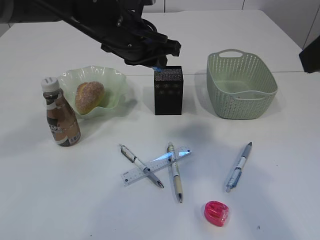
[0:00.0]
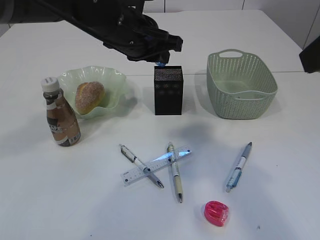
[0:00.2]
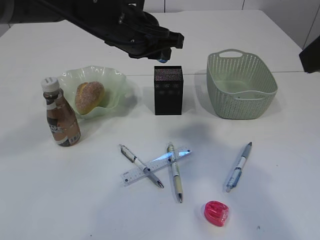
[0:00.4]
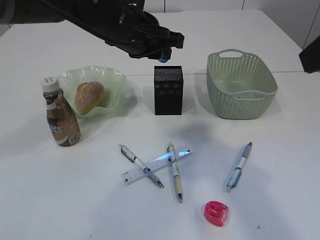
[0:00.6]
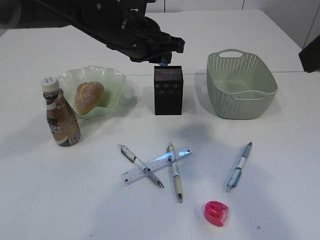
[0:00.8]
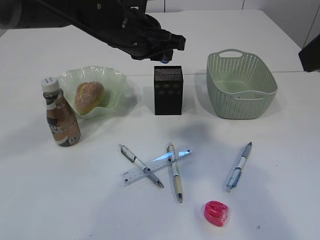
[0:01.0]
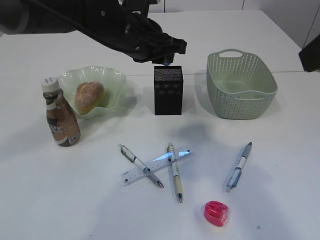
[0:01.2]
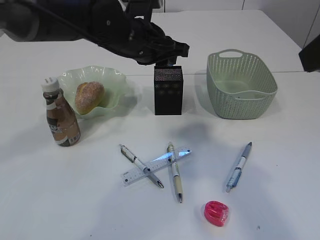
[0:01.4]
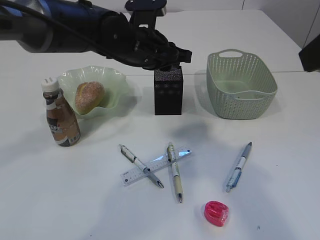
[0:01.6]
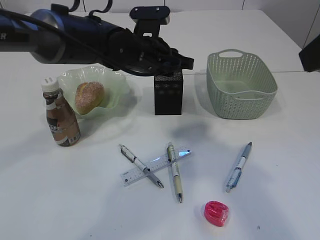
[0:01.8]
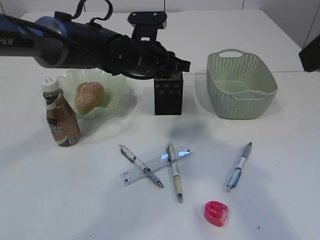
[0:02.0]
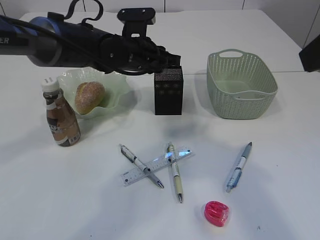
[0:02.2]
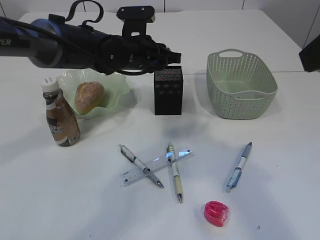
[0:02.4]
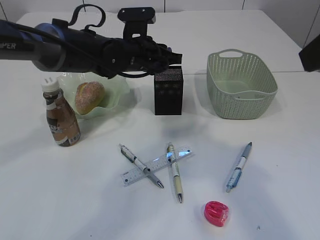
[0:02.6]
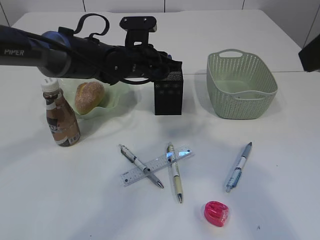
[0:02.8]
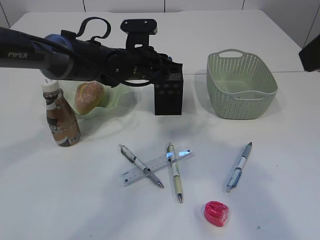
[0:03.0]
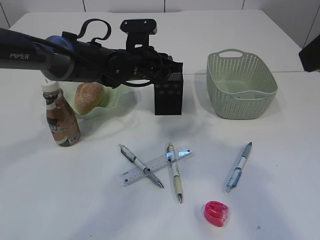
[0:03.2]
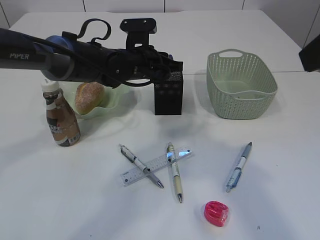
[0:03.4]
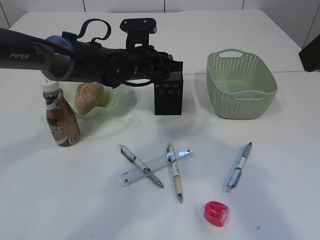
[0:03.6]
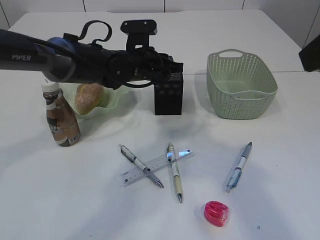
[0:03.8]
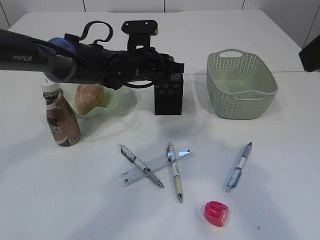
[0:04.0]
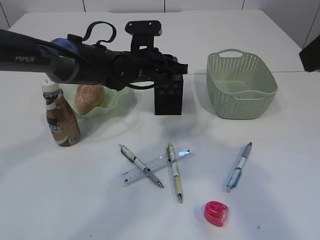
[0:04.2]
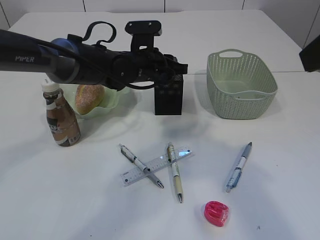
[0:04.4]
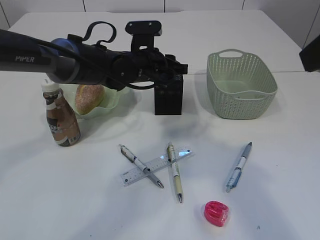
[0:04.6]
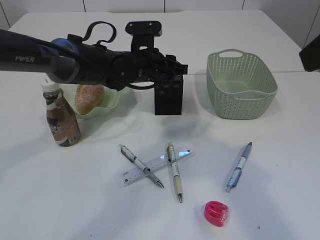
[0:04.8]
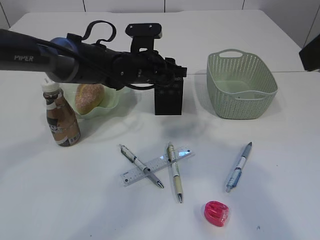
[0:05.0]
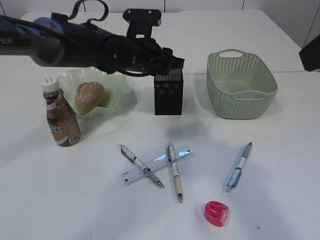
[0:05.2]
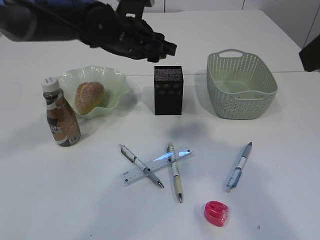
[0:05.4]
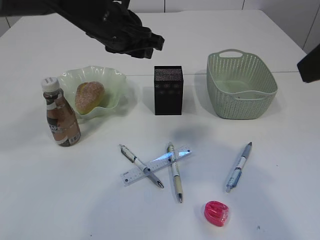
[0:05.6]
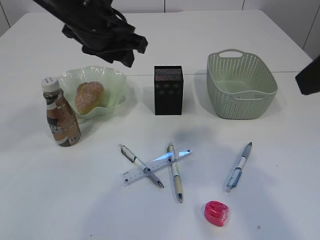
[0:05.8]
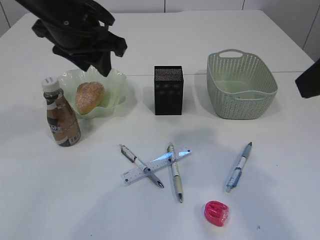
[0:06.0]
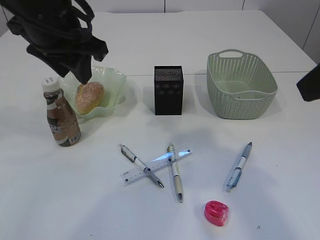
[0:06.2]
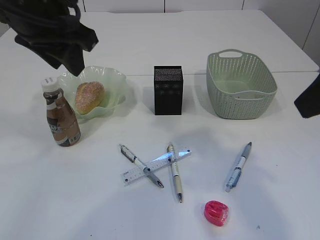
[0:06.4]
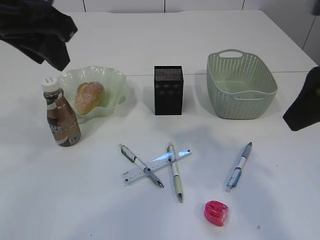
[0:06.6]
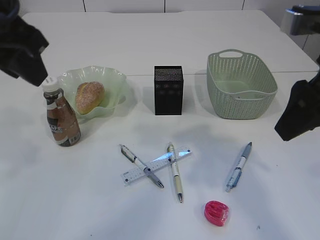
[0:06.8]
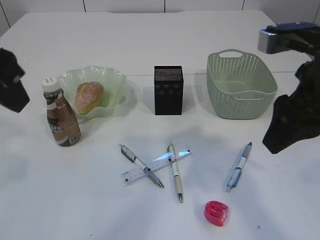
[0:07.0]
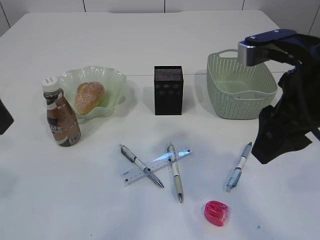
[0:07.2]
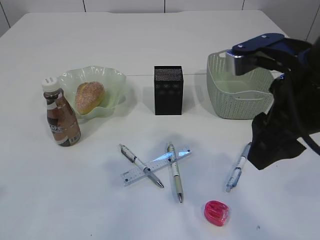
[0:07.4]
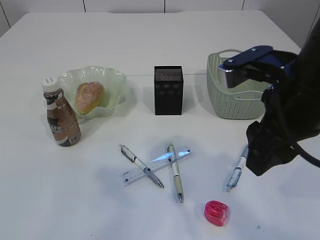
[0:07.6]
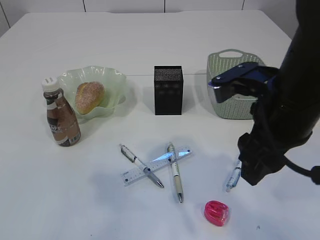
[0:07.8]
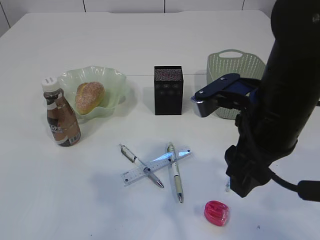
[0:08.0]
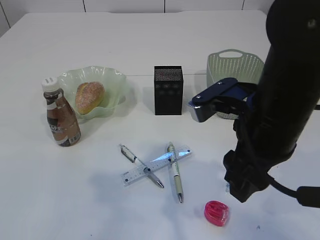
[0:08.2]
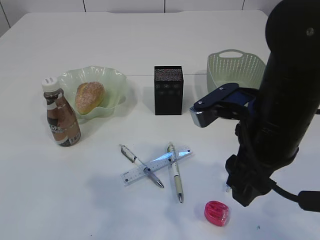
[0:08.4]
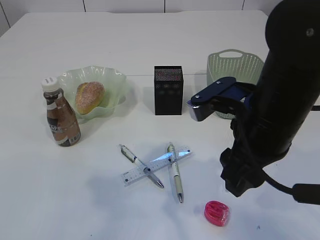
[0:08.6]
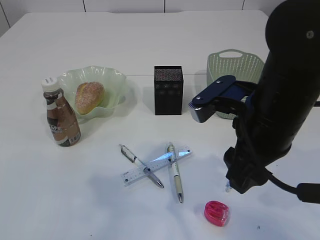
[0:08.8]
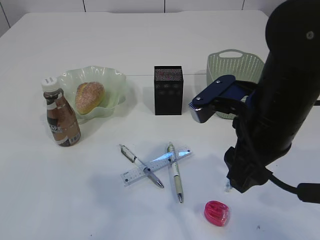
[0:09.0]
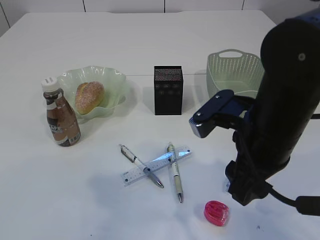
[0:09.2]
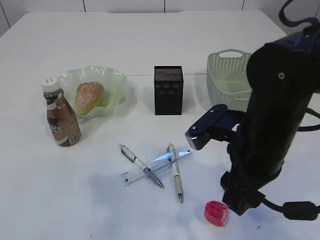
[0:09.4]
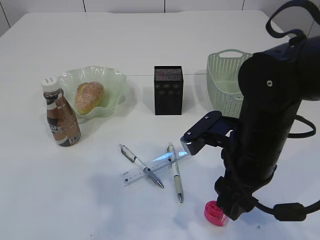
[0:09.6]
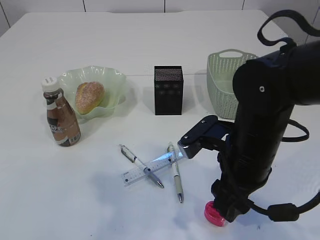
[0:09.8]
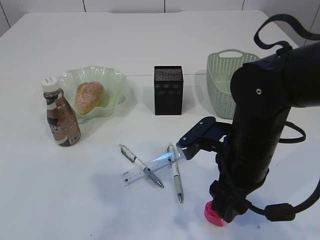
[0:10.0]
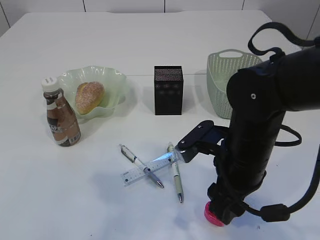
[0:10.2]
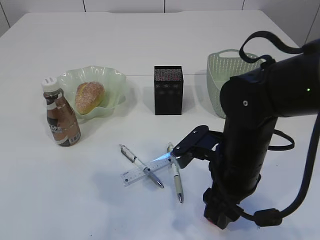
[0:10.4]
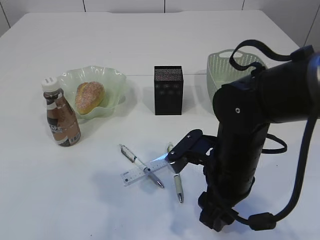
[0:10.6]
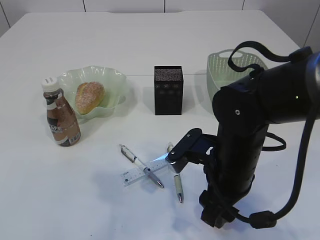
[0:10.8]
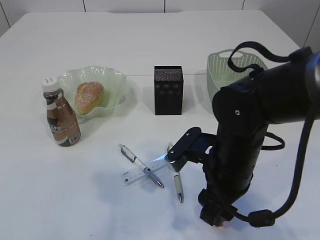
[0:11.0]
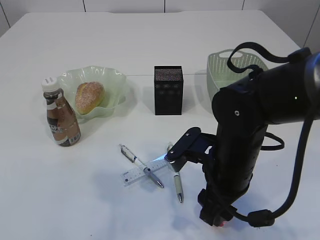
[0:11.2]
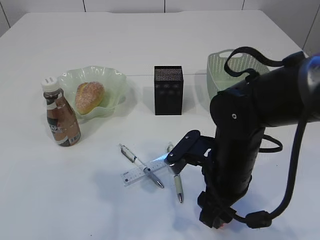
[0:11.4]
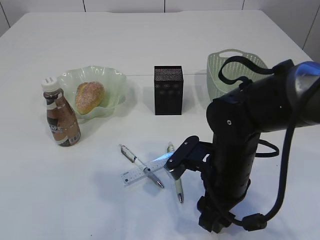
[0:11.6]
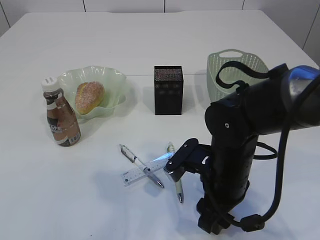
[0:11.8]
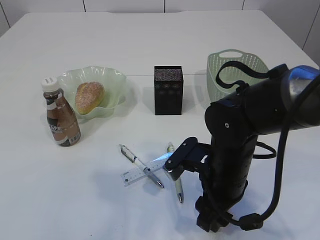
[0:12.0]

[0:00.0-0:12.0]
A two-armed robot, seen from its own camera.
Step, 0:00.0 to 0:05.6: Place the blue pencil sharpener into the pen holder.
0:00.0 to 0:01.6: The left gripper changes place by about 5 cm.
0:01.6 to 0:03.0: The left gripper goes about 5 cm downward.
0:03.0 to 0:04.4: The two grippers keep their place.
0:04.4 to 0:06.0: The left gripper is displaced upward, backward and to the left by about 20 cm.
0:06.0 to 0:07.6: The left gripper travels backward and to the left by approximately 20 cm, while the right gripper travels downward and to the left by about 10 cm.
0:07.6 to 0:09.0: The grippers move only a little.
0:09.0 to 0:10.4: The right gripper moves downward, roughly 10 cm.
0:10.4 to 0:12.0: The grippers stay close to where they were, moving slightly.

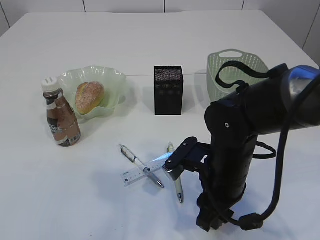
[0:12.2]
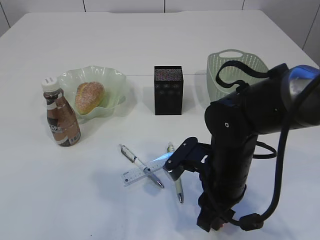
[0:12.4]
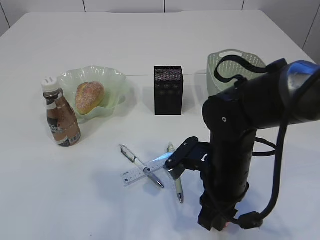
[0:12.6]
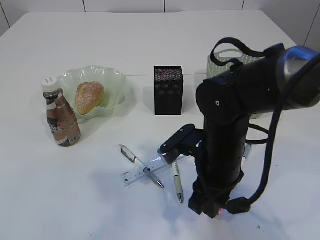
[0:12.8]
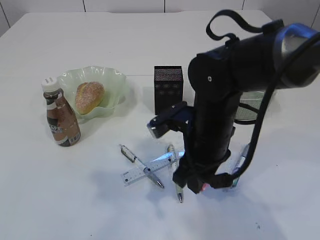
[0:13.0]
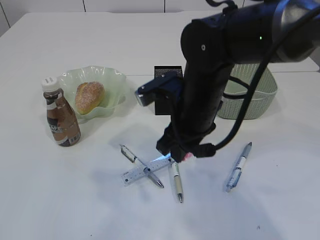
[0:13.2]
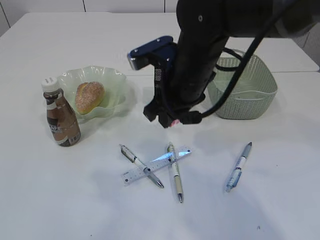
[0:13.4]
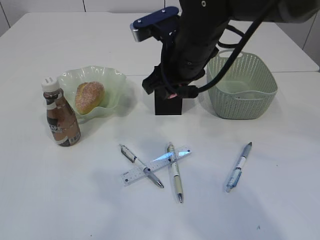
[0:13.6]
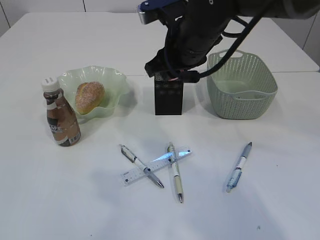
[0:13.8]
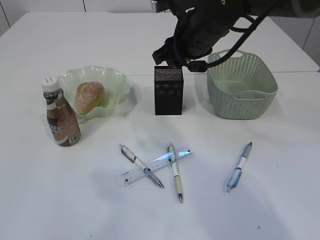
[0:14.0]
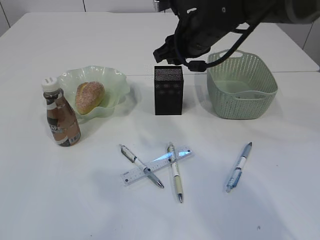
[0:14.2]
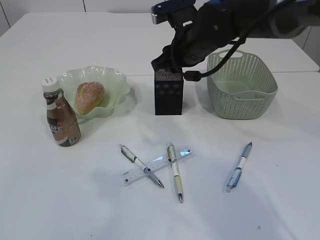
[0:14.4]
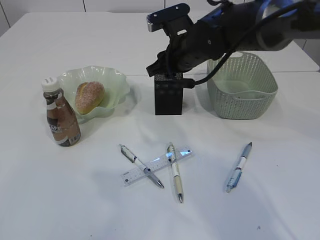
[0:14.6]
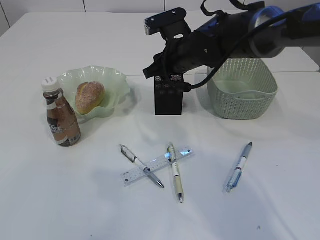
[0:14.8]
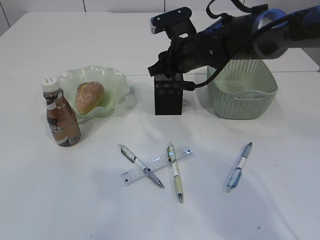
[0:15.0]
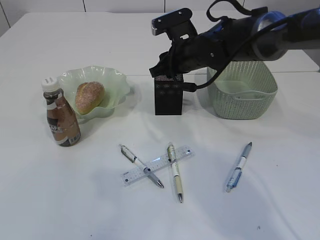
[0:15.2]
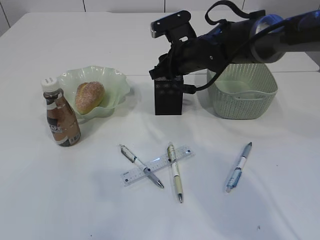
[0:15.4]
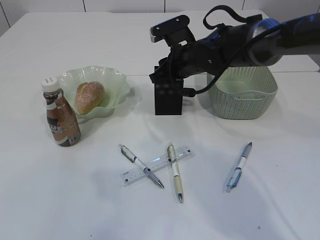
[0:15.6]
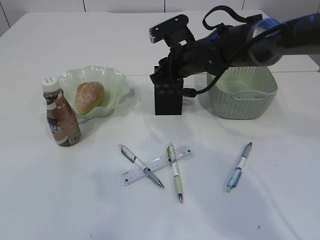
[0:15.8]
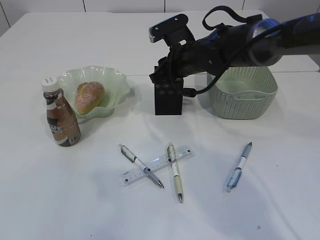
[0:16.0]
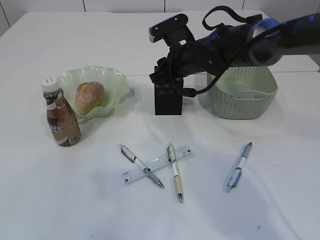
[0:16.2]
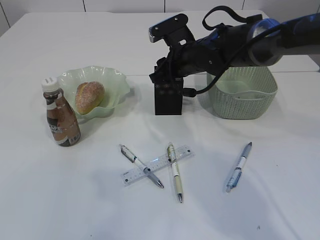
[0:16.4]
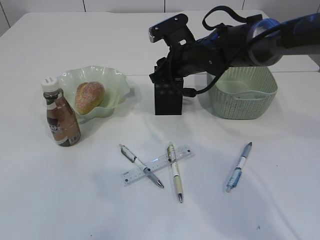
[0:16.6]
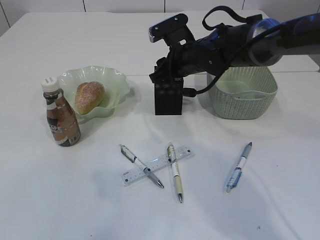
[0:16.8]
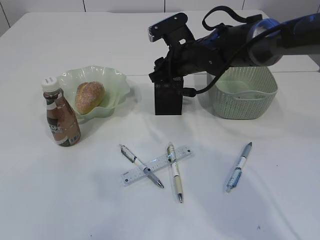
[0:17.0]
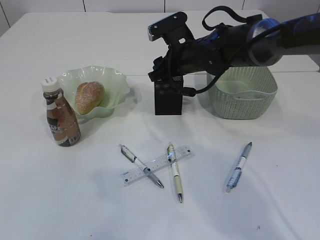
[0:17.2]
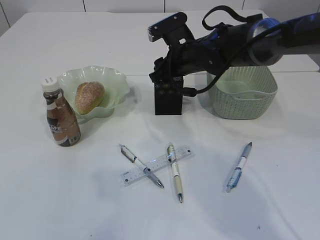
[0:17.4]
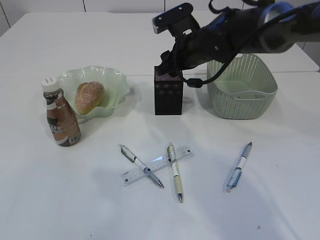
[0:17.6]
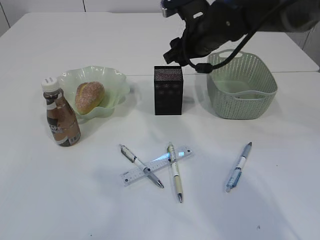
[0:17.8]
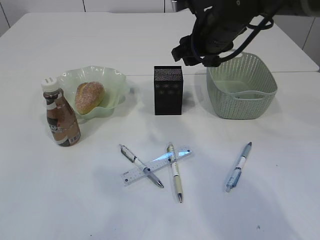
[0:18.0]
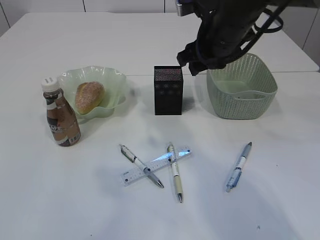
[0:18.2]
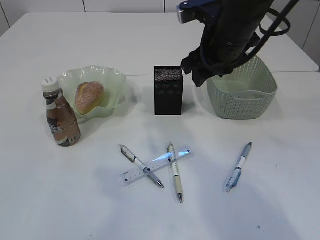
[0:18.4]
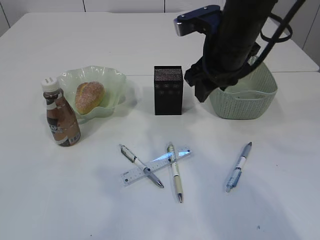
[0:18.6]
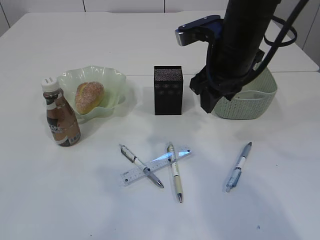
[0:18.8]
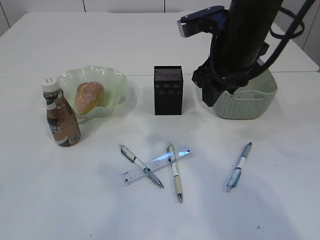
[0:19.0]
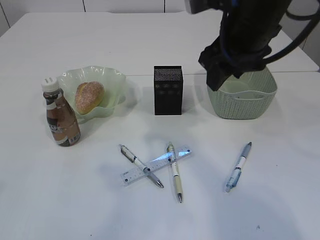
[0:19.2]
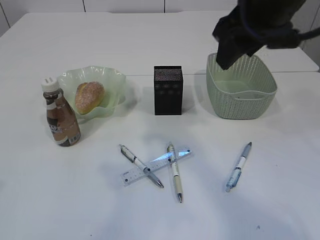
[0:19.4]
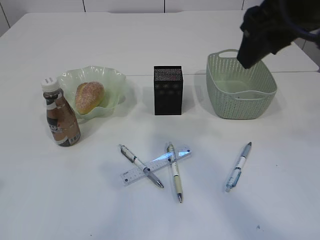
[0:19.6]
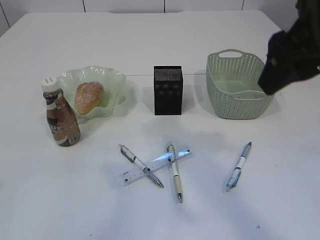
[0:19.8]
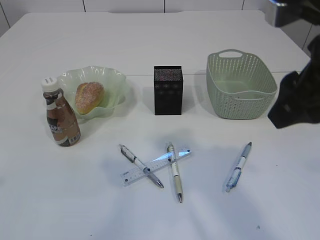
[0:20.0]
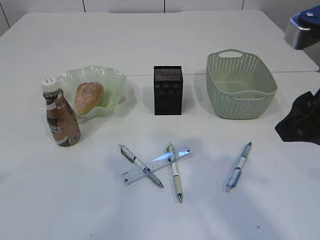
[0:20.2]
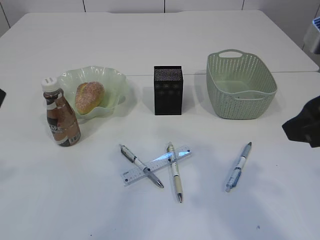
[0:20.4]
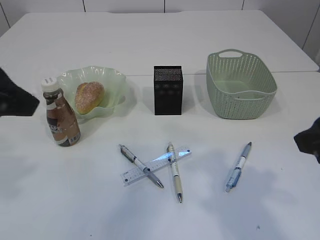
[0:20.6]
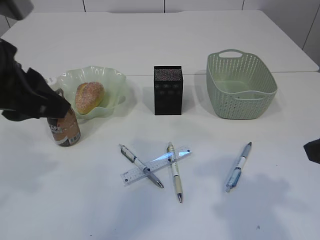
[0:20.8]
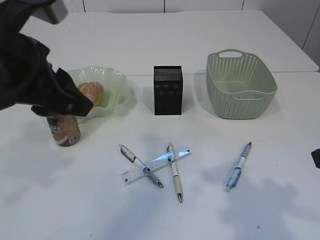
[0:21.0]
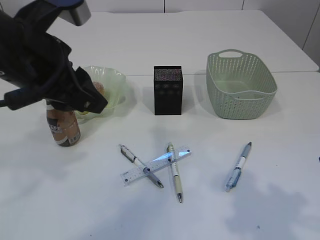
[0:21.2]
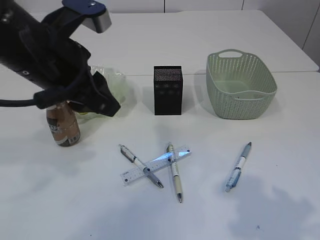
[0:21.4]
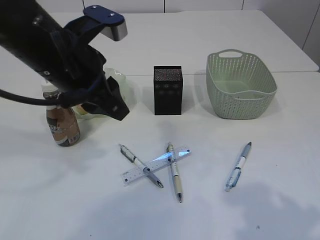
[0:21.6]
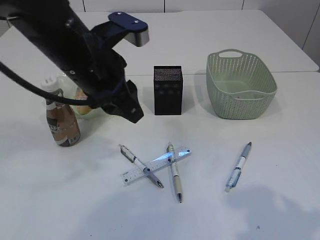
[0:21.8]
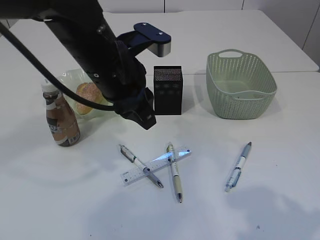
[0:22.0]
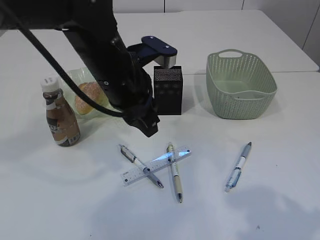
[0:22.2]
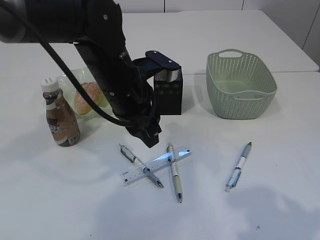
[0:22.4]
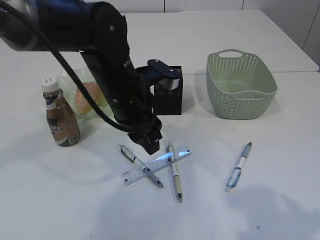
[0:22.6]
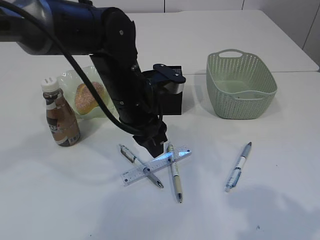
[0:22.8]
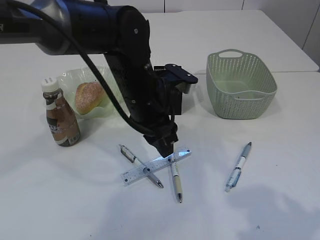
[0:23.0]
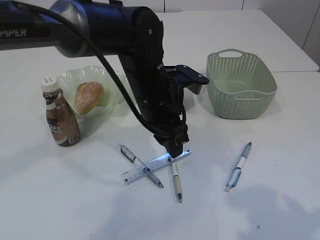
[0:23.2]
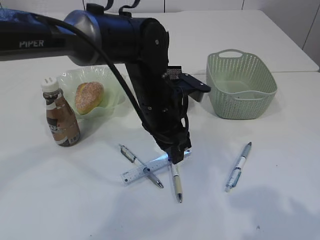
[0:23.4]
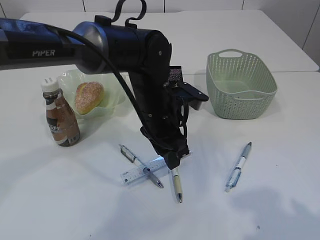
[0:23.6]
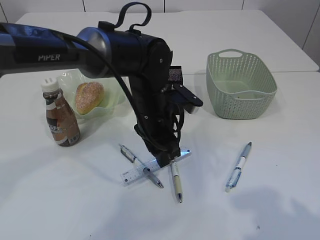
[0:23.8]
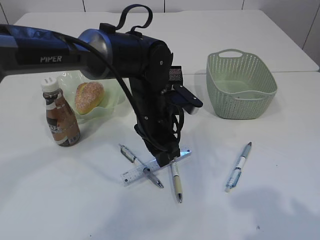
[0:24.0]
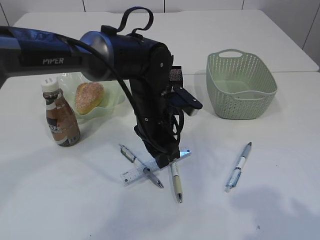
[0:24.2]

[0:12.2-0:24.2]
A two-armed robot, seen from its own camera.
Step, 0:13.4 to 0:17.8: Place the red pencil sharpener into the pen holder.
0:12.2 to 0:13.8: The right gripper is displaced upward and forward by approximately 20 cm.
0:13.8 to 0:15.2: The right gripper shifts some 10 cm forward and downward.
0:15.2 to 0:16.6: Both grippers stay about where they are.
0:16.6 to 0:18.2: The right gripper shifts roughly 10 cm upward and backward.
0:18.2 to 0:19.8: The right gripper moves backward and upward, roughly 20 cm.
0:19.8 to 0:21.2: The right gripper is displaced backward, downward and to the right by some 15 cm; the left gripper is displaced forward and to the right by roughly 15 cm.
0:21.2 to 0:22.6: The left gripper shifts some 15 cm downward, to the right and forward.
0:22.6 to 0:24.2: The left gripper shifts about 5 cm downward.
